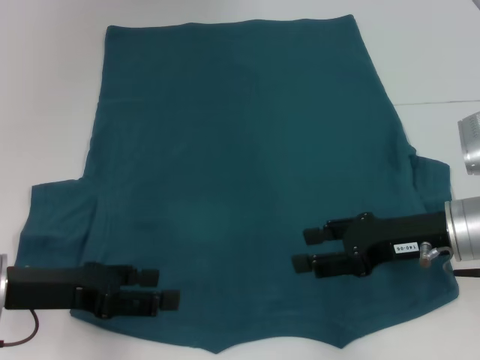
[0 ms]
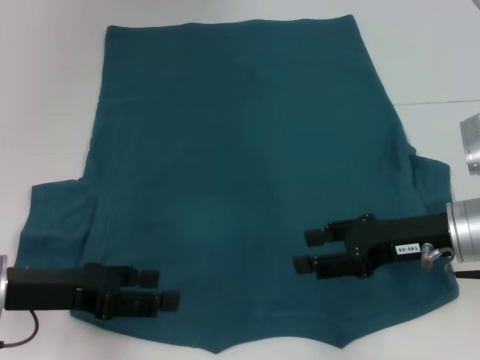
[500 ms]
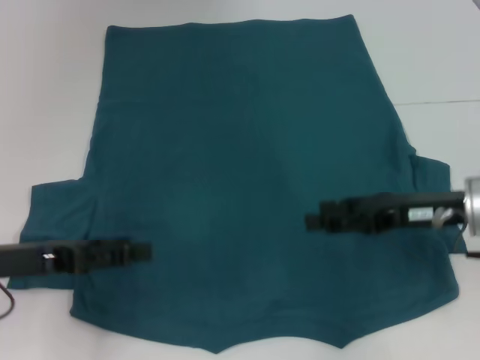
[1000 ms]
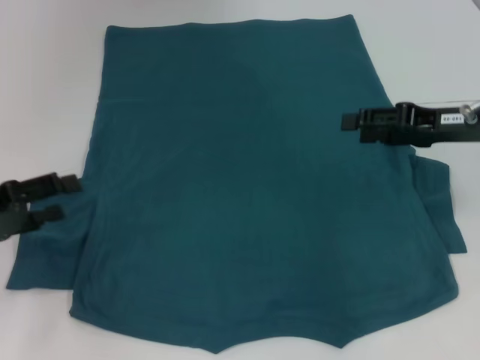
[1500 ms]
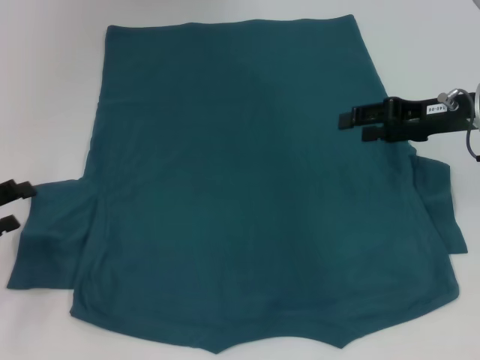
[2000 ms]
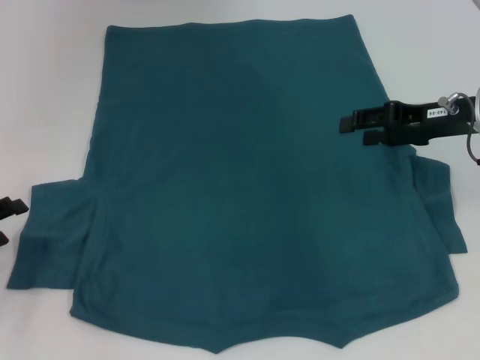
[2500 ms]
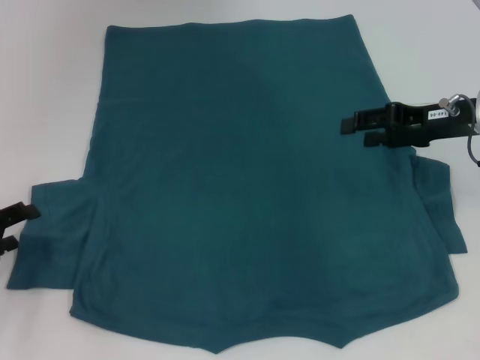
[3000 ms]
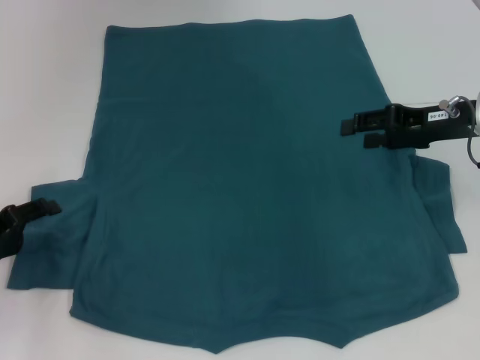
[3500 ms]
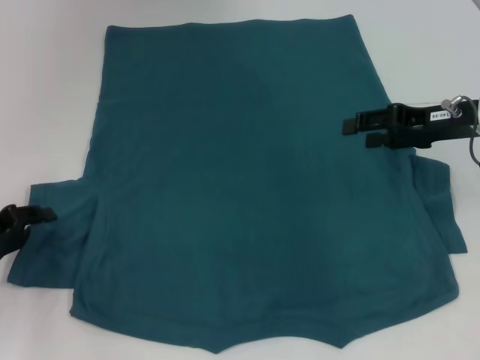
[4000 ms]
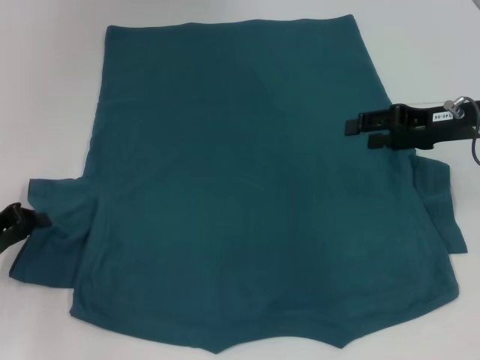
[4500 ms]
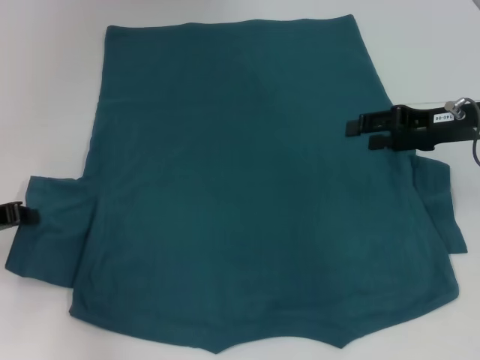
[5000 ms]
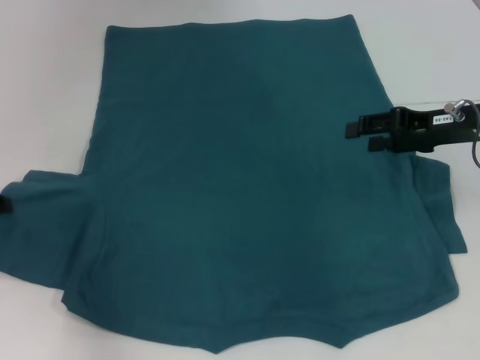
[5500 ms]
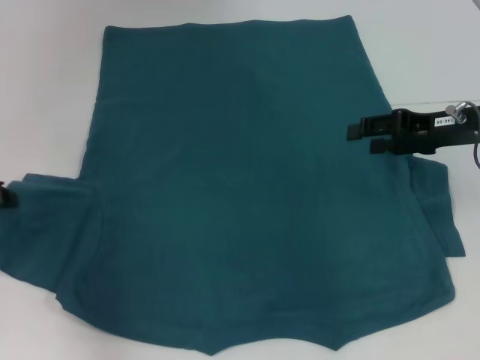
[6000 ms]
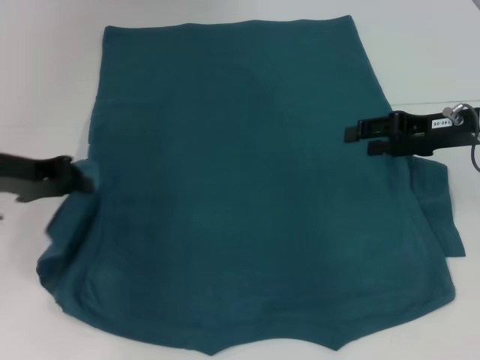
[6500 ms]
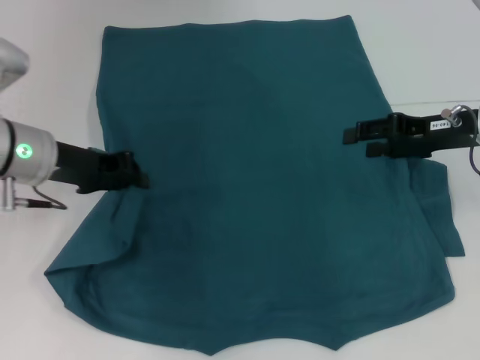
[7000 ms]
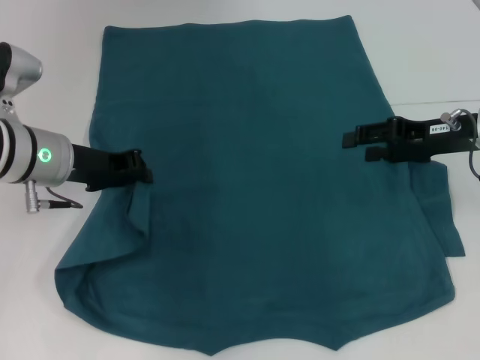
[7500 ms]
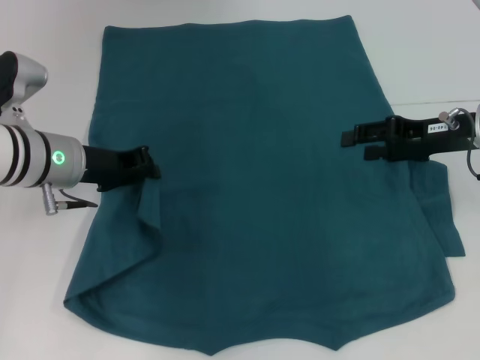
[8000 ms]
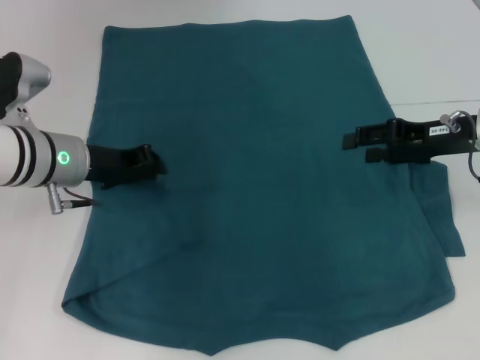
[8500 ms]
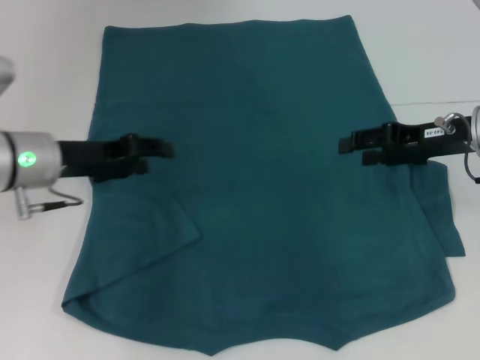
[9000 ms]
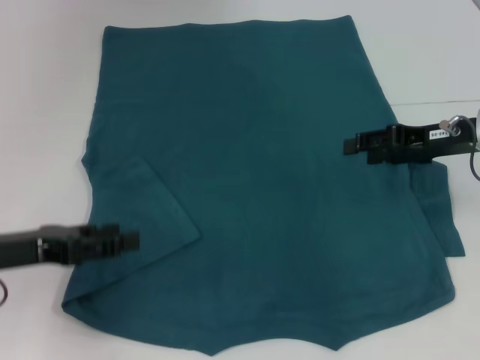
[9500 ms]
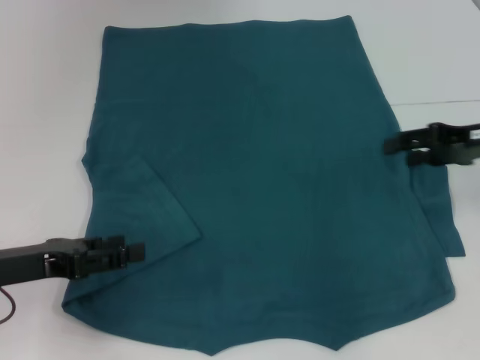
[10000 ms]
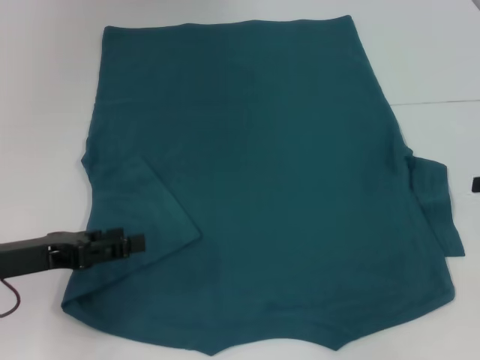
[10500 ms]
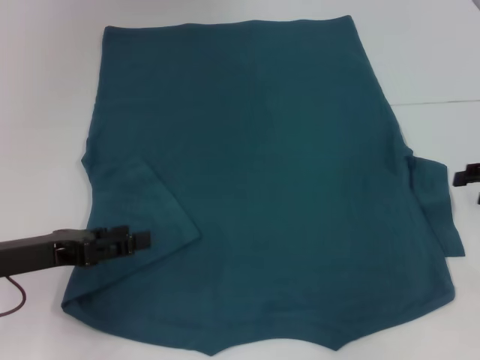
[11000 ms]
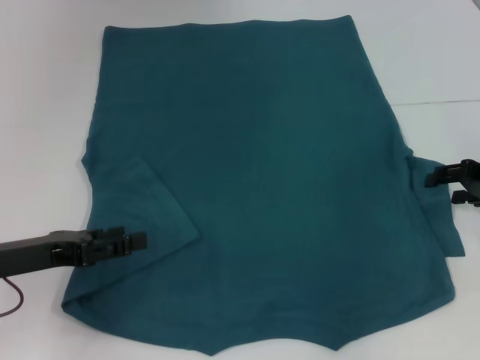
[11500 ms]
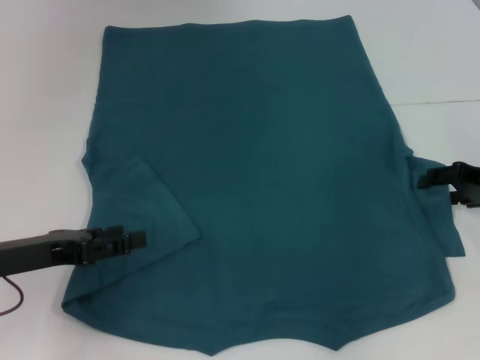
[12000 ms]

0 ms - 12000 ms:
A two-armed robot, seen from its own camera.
Step, 0 ms - 9000 ms: Fold the bottom left sleeve with your left hand.
0 ms - 2000 ms: The left gripper is displaced to the left by some 10 cm, while the right gripper goes roughly 10 cm forward and upward.
2000 ms - 4000 ms: The grippers move only a little.
4000 ms - 6000 ms: The left gripper heads upward, covering some 5 cm, and closes.
6000 ms - 8000 ms: The left gripper moves to the right, some 15 cm.
8000 ms - 10000 ms: The left gripper goes roughly 15 cm backward and to the left, and opens its fingers.
10000 ms - 12000 ms: The right gripper moves downward, roughly 5 cm, and goes to the right and returns, about 10 cm each way.

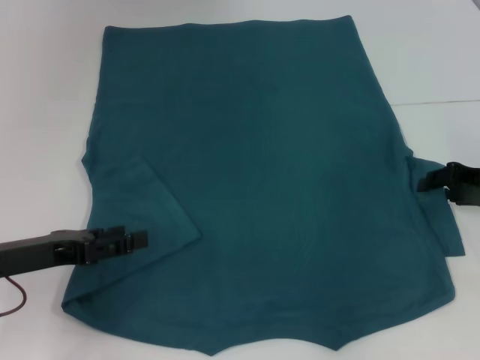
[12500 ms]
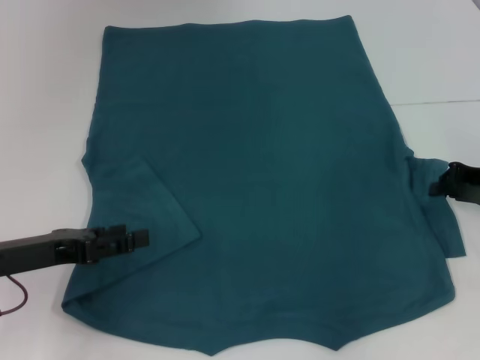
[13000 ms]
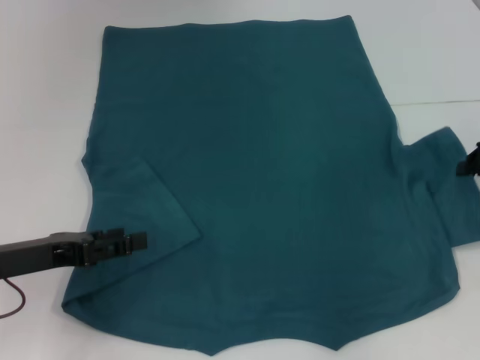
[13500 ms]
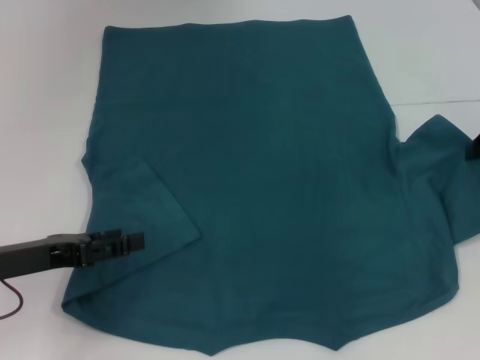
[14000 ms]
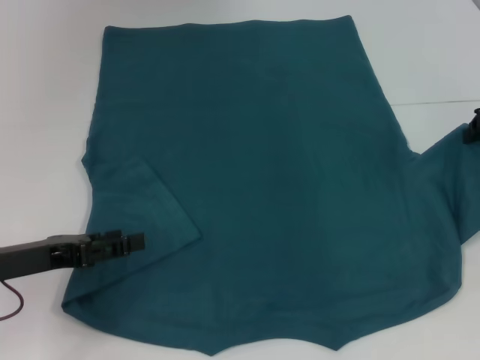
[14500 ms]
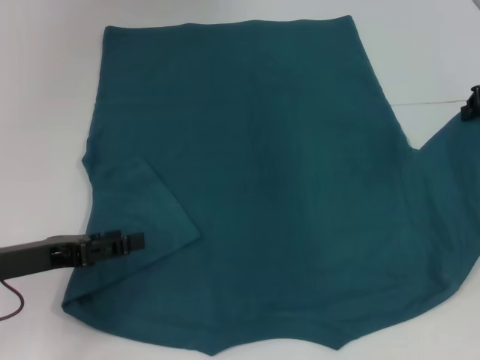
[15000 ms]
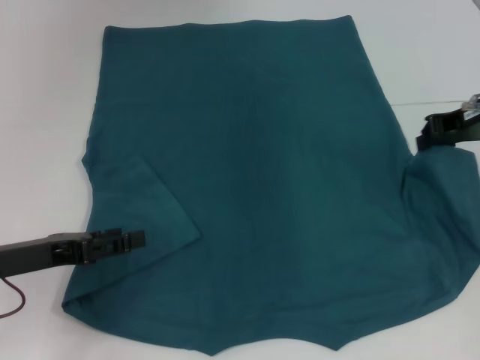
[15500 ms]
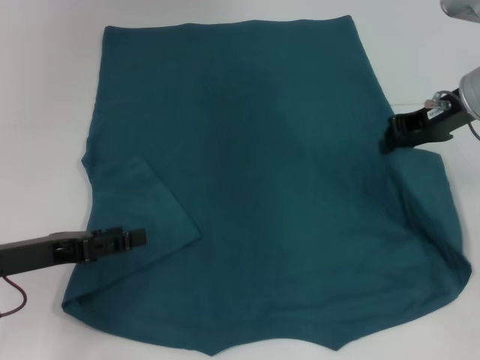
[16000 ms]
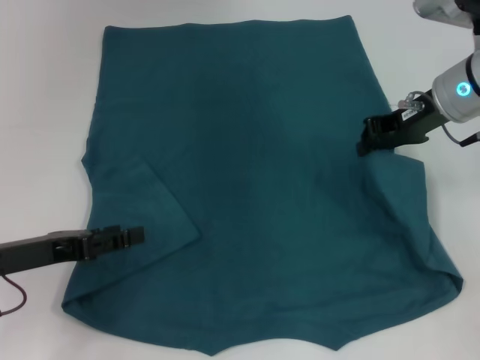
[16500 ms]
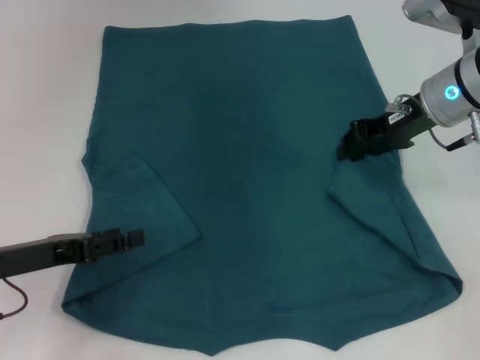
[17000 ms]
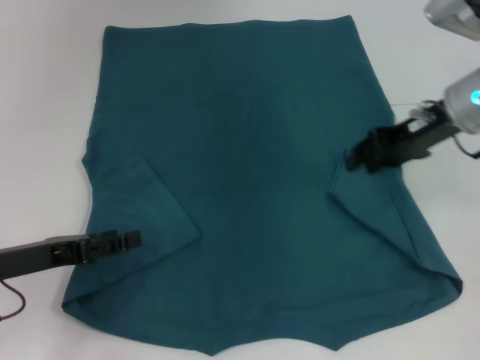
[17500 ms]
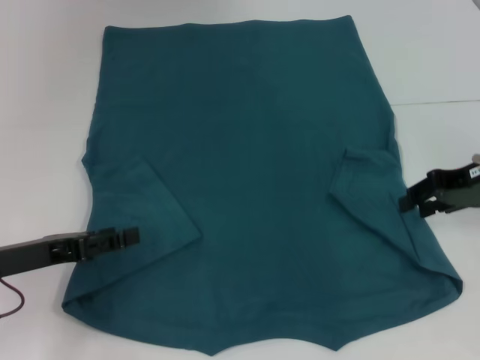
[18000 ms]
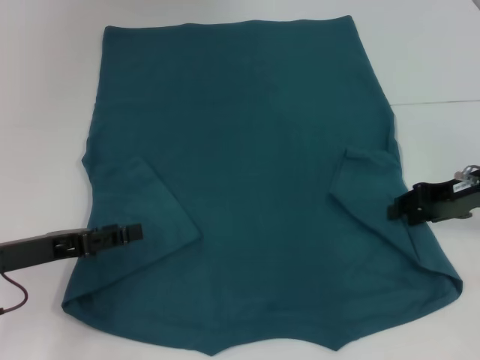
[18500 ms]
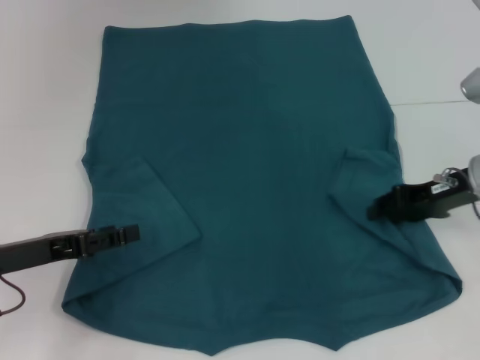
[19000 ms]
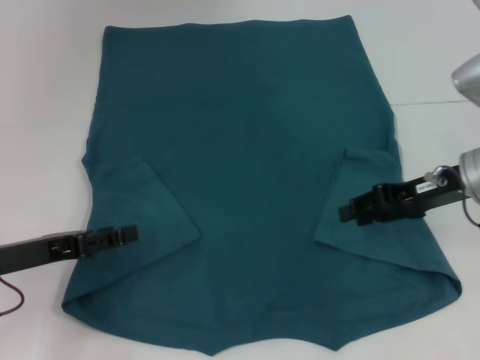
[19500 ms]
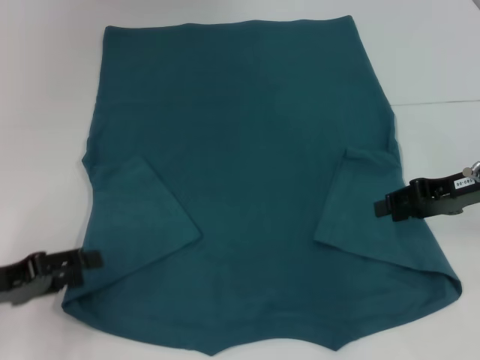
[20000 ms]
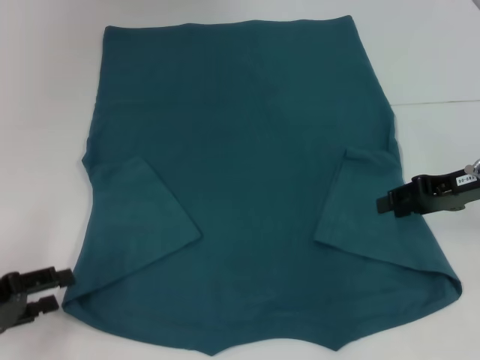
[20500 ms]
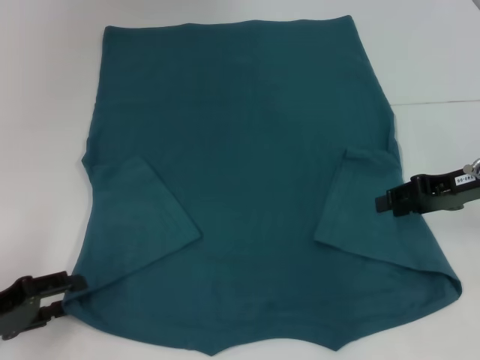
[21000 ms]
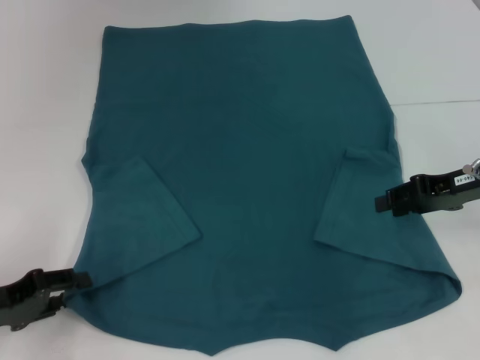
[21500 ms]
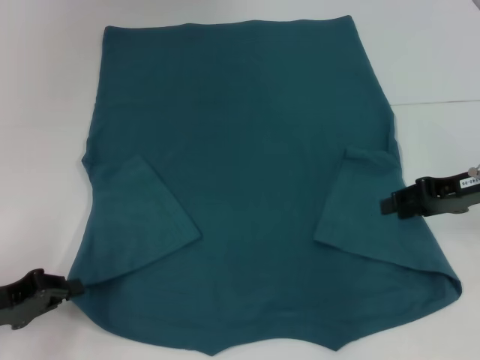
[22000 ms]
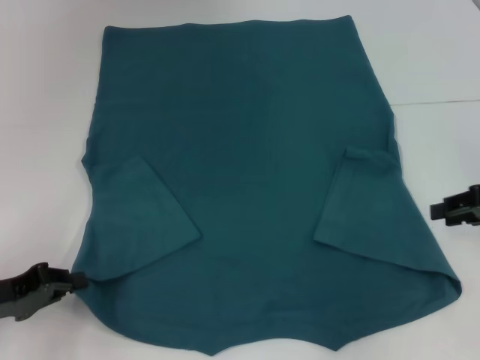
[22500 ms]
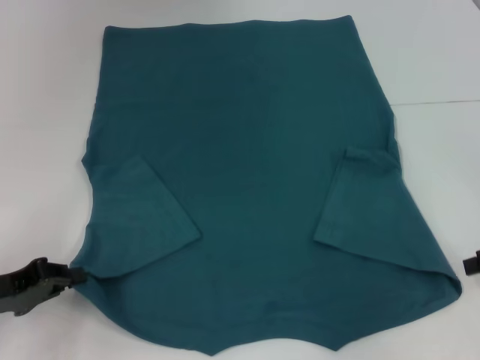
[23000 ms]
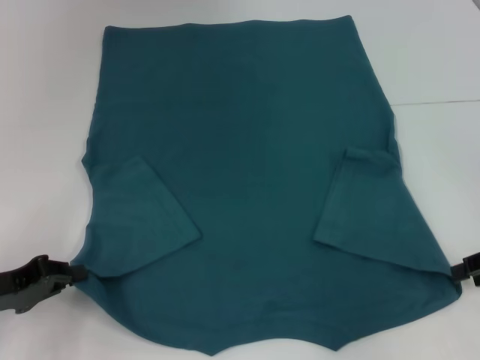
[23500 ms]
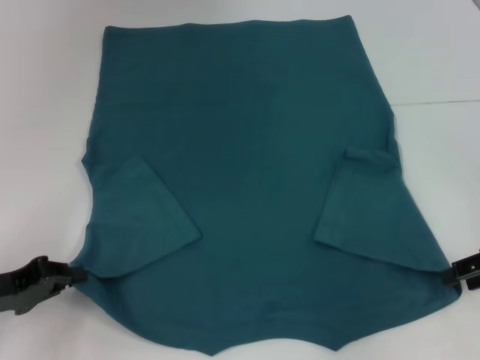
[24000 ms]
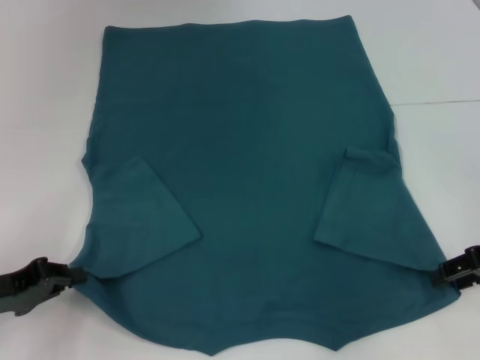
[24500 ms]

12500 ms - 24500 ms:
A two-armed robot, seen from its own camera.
Step, 12500 ms - 19000 ms: Fold the bottom right sleeve to the right.
Step, 19500 ms - 22000 ms: Grab the bottom left corner with your left hand.
12500 ms - 14500 ms: The right gripper moves upward, roughly 10 cm, and closes.
14500 ms - 16500 ms: The right gripper goes about 10 cm to the left.
16500 ms - 18500 ms: The right gripper heads to the right, downward and backward, covering about 10 cm, and opens its fingers.
18500 ms - 20500 ms: The left gripper heads to the left and backward, covering approximately 10 cm.
20500 ms - 22500 ms: The right gripper is displaced to the right by some 5 cm. Meanwhile the left gripper closes its fingers.
22500 ms - 24500 ms: The grippers make only small movements.

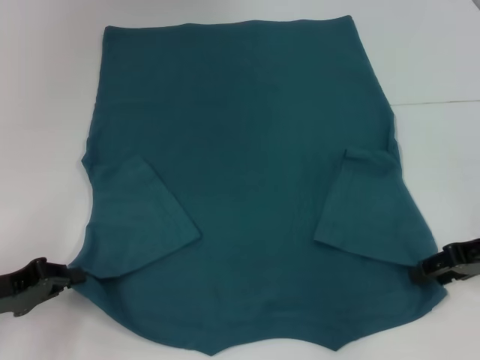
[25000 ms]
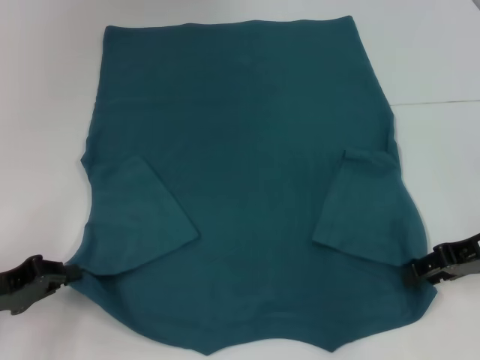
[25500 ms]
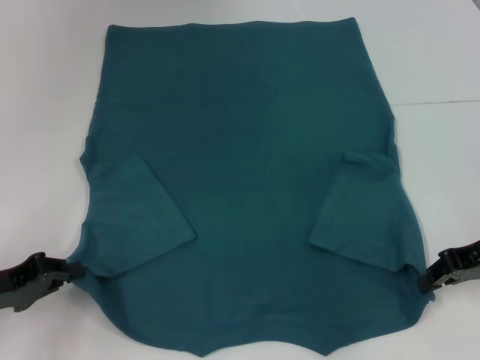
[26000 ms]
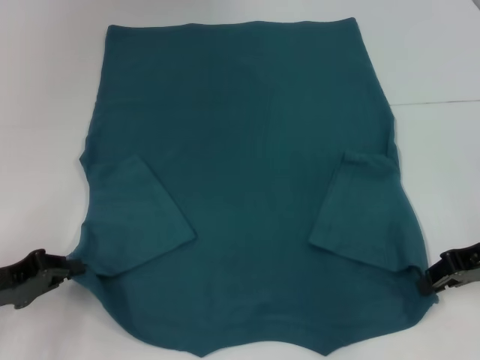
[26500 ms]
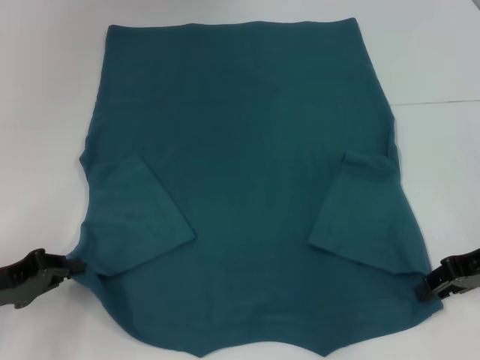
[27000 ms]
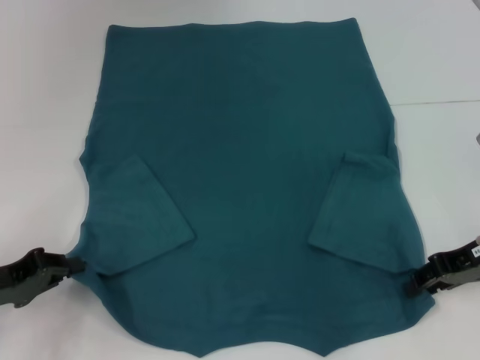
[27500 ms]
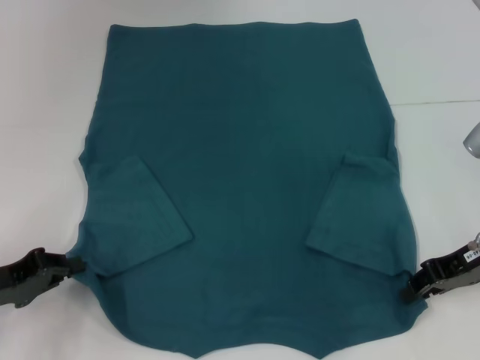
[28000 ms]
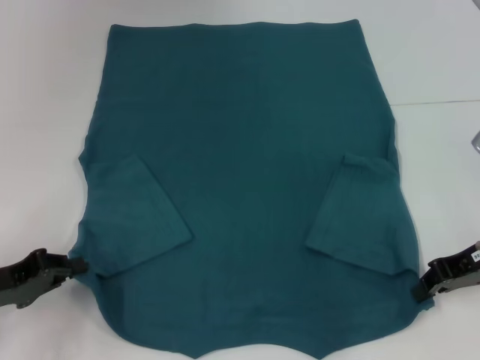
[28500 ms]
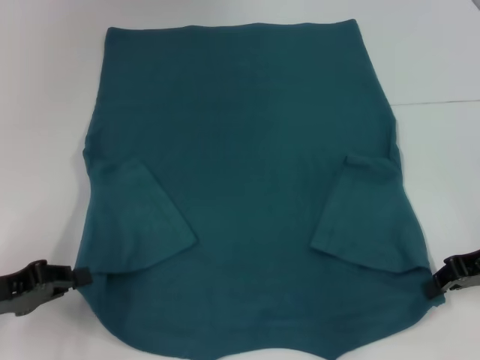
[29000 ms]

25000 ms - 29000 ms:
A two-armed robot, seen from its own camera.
25000 ms - 27000 ms: The right gripper closes.
27000 ms - 29000 ms: The right gripper closes.
